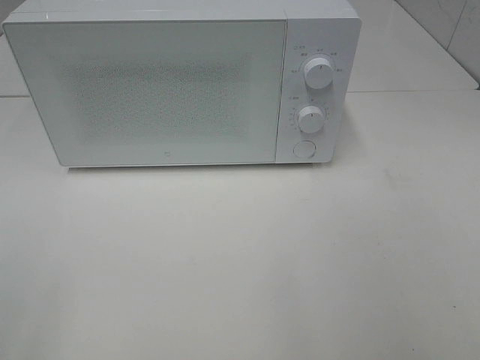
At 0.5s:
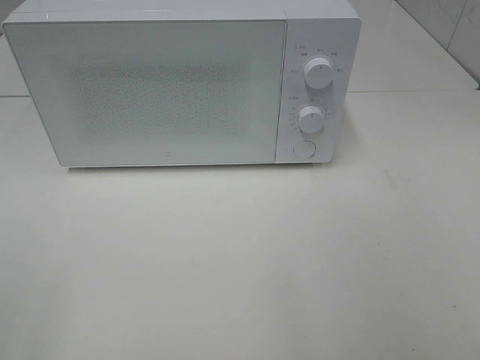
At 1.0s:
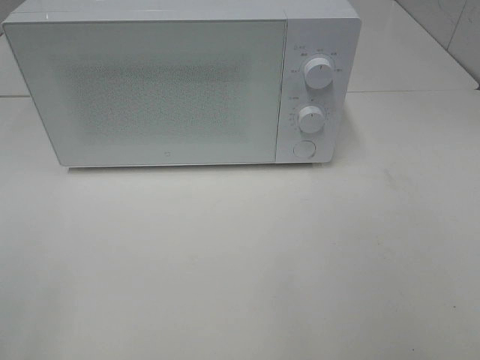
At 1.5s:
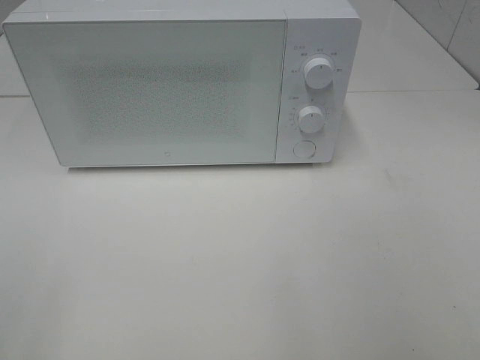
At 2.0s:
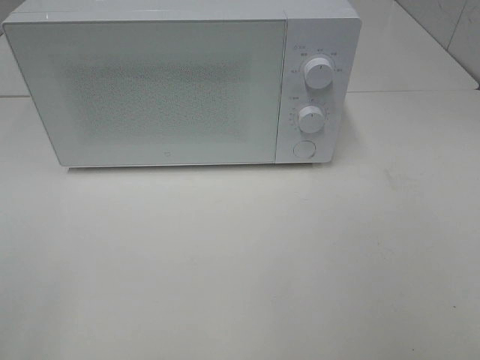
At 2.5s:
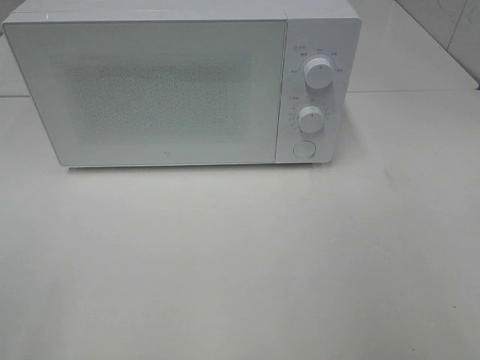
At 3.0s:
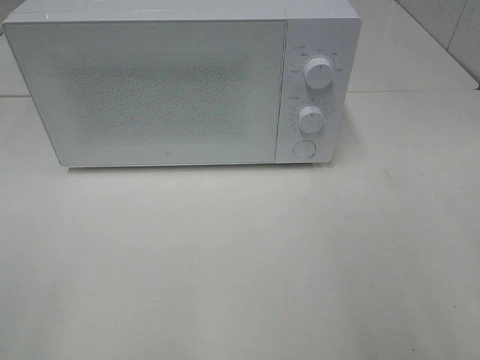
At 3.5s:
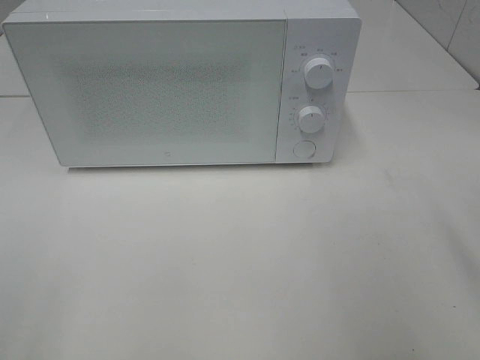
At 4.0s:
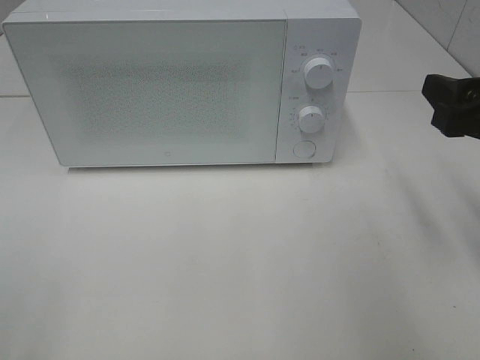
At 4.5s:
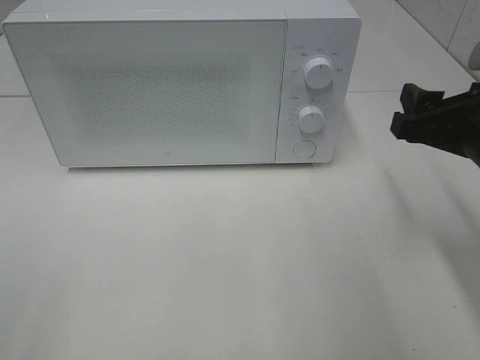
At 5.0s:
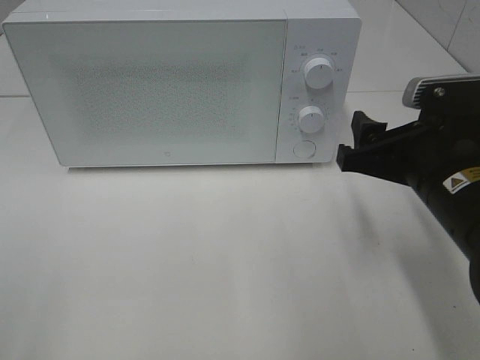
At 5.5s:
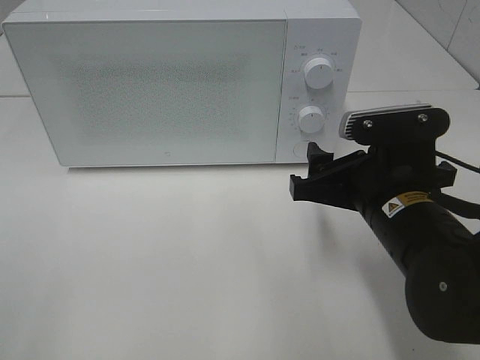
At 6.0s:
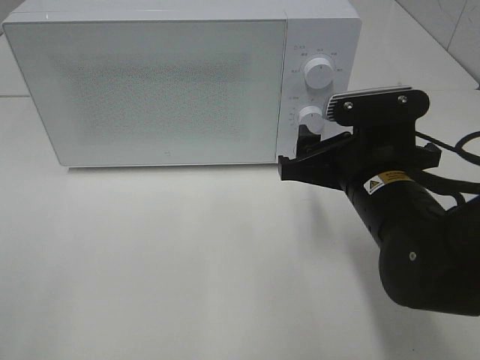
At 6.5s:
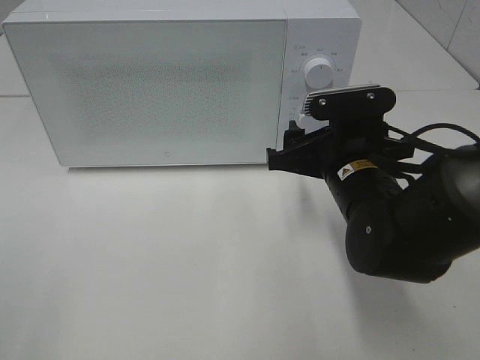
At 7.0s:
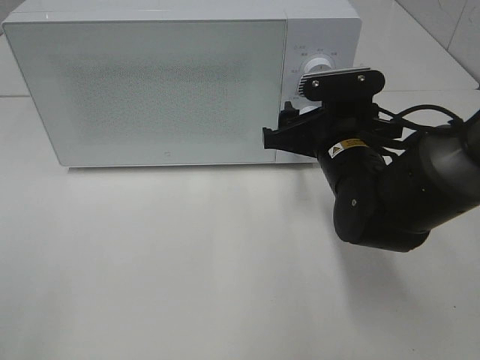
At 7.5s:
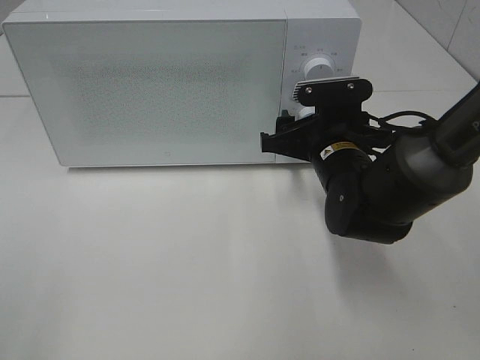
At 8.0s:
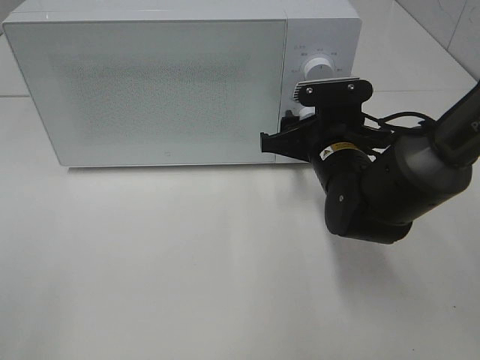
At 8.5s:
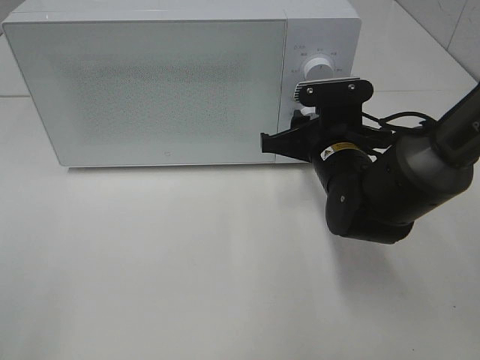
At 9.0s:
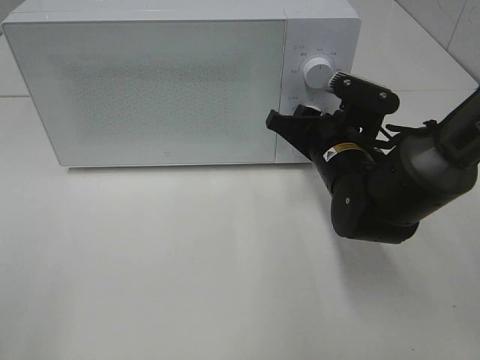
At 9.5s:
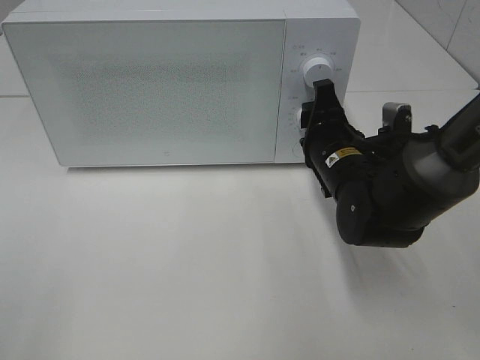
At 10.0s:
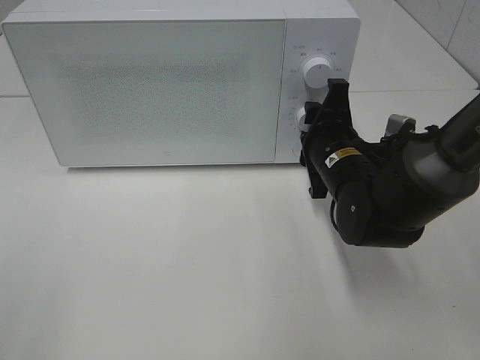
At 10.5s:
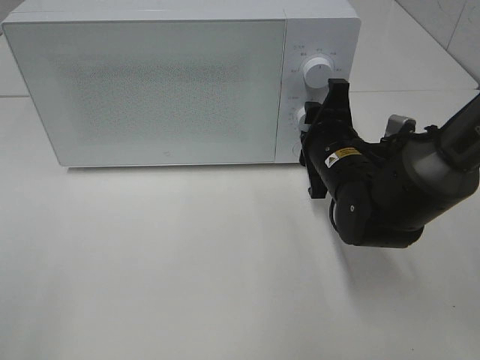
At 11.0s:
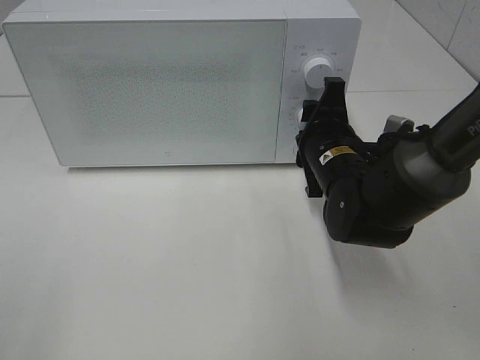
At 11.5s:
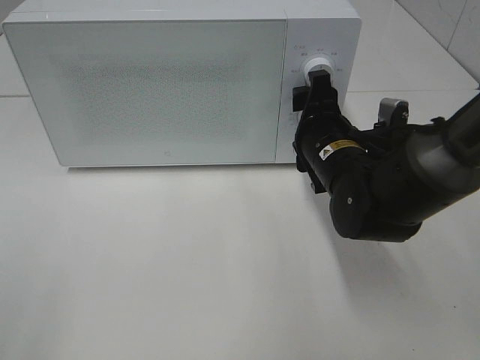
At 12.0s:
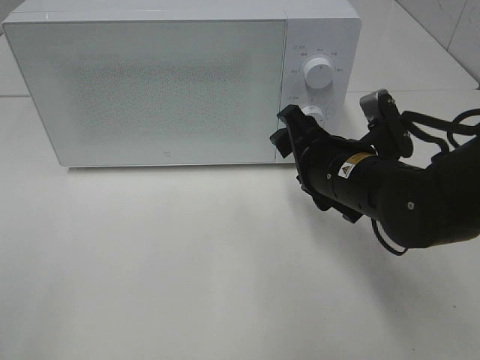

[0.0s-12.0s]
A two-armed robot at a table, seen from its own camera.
Task of the whole recording: Heat the burger.
Step, 0.0s to 11.0s: Right hand: twist timer button.
0.0s to 2.0s: Both grippers stay about where they are.
2.0s to 4.0s: The right gripper shifts roughly 20 cm forward.
4.0s to 6.0s: The right gripper travels to the left and downward by roughly 15 cm.
6.0s to 8.0s: The right gripper travels forward by about 10 cm.
10.0s to 12.0s: The right gripper changes place by about 5 cm.

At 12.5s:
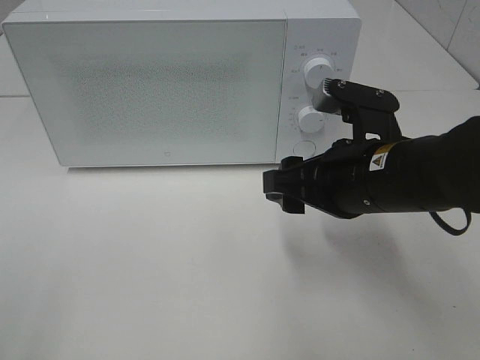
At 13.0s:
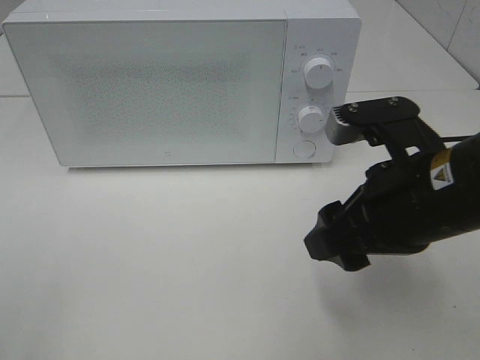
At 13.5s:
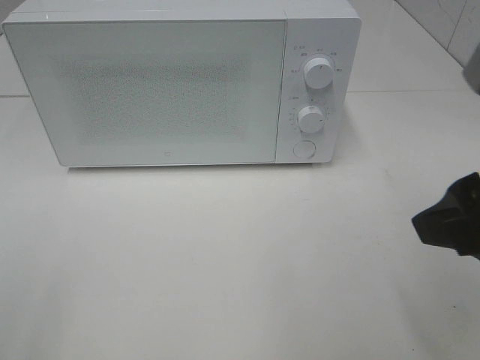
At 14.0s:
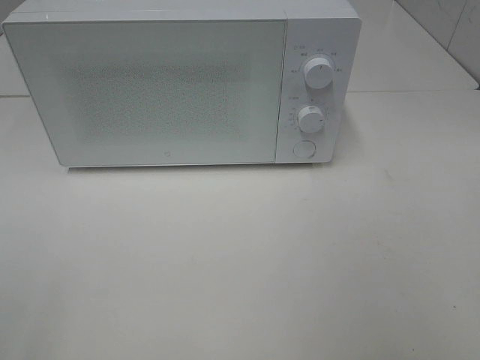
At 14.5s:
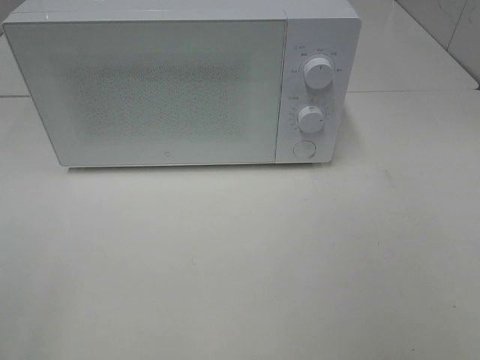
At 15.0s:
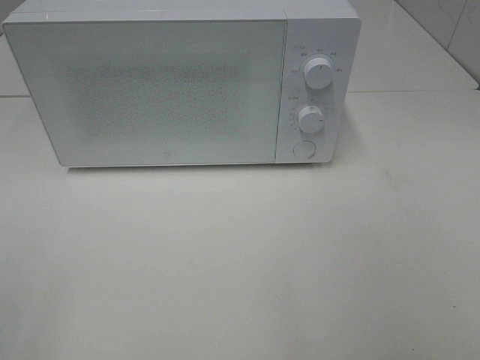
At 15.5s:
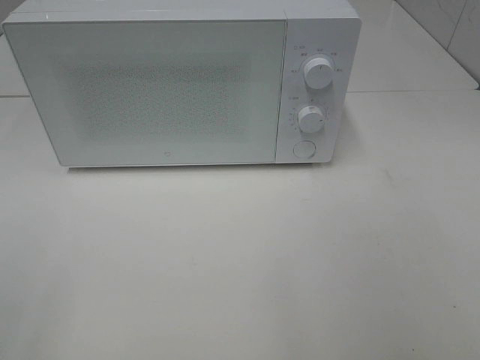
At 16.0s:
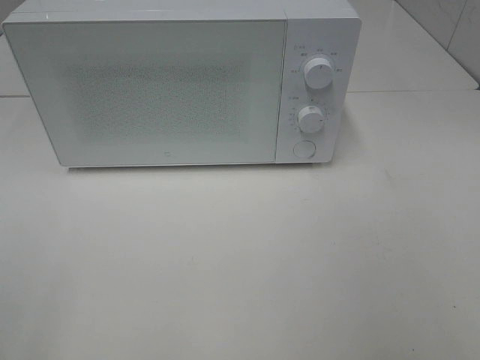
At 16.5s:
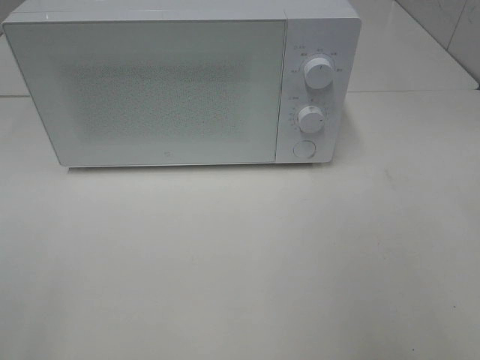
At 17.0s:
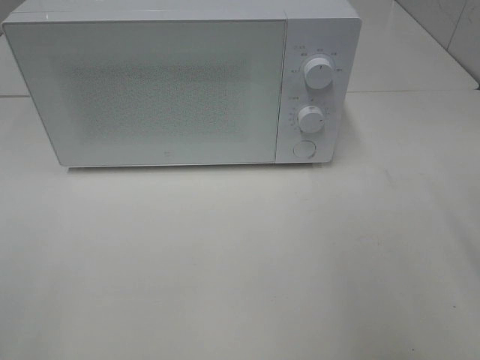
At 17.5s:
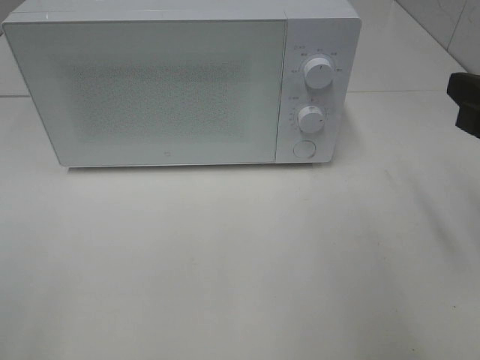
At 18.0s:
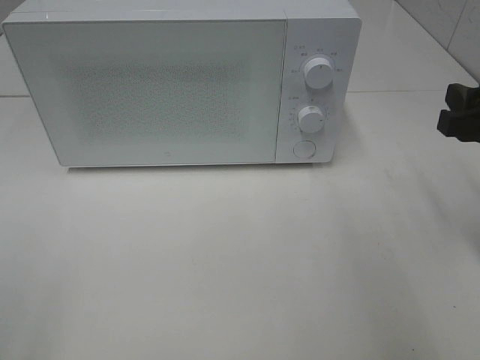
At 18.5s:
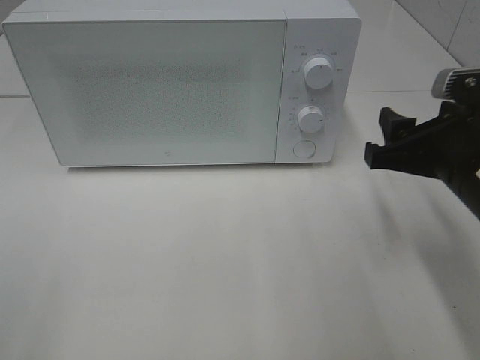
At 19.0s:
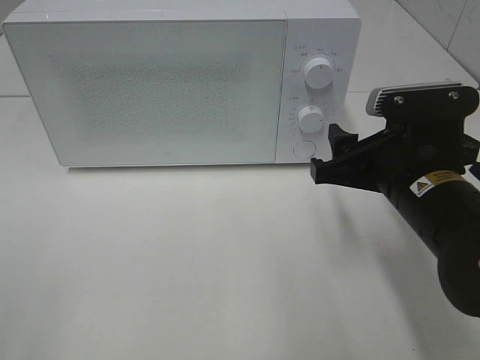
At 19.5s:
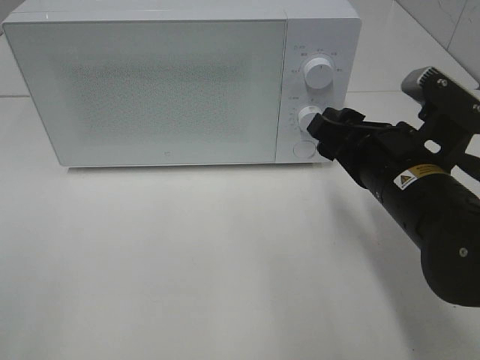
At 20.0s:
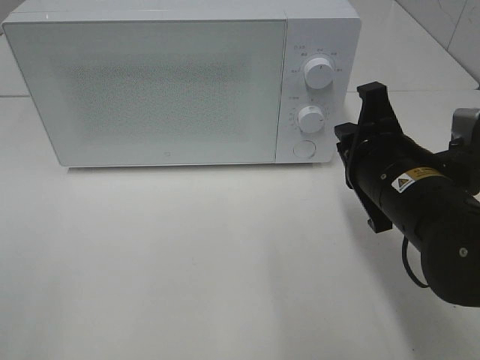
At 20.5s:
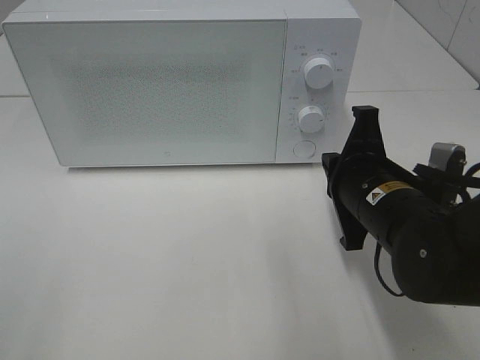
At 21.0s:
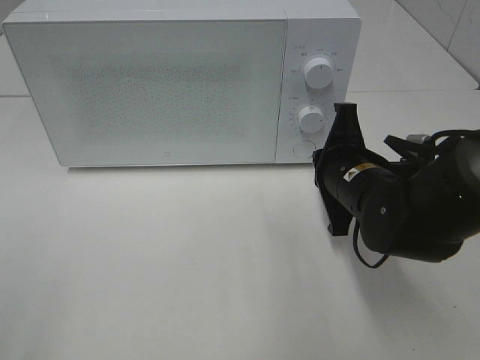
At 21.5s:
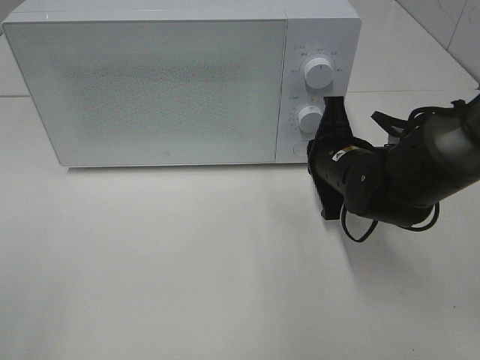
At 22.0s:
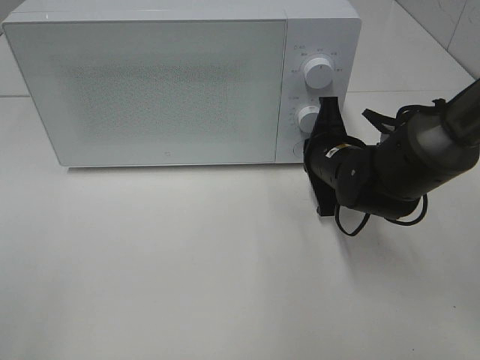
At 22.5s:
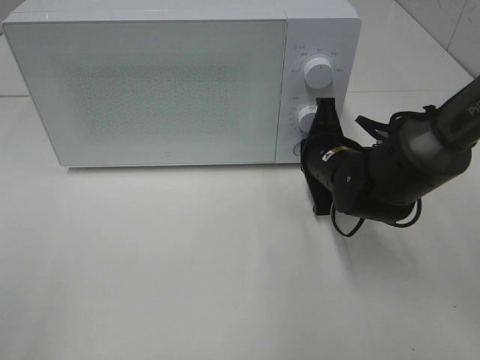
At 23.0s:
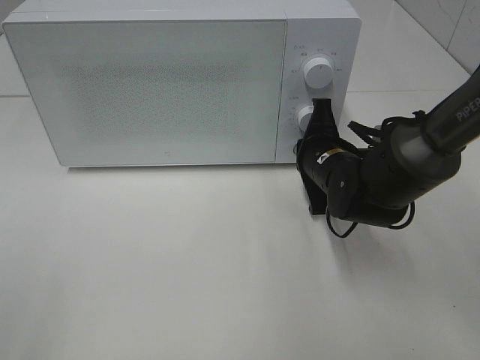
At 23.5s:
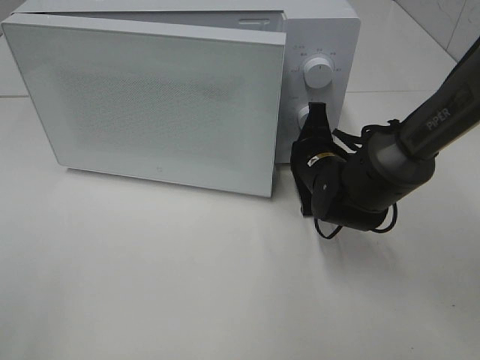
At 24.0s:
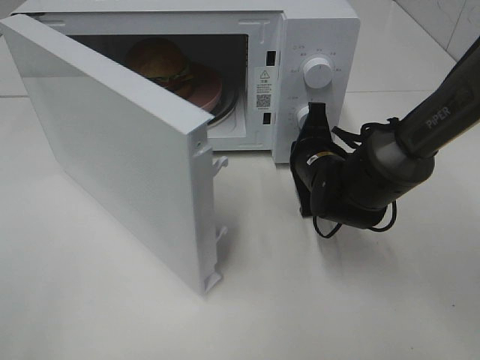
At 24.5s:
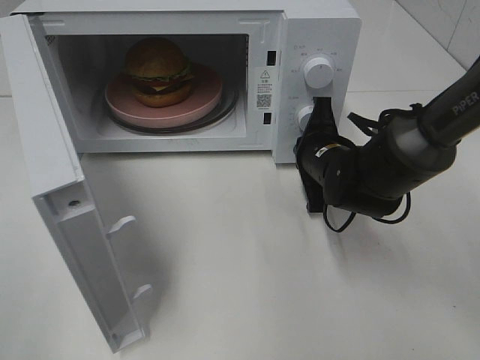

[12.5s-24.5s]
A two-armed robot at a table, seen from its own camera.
Task of the whole recording: Heat the burger.
12.5s to 14.5s: The right gripper travels backward, to the right and upward by about 30 cm.
16.5s to 18.5s: The right gripper moves downward, forward and to the left, some 20 cm.
18.5s to 20.5s: The right gripper moves to the left, some 5 cm, and closes.
20.5s to 22.5s: The right gripper moves forward, about 10 cm.

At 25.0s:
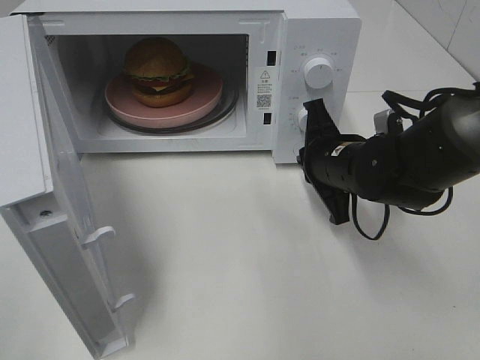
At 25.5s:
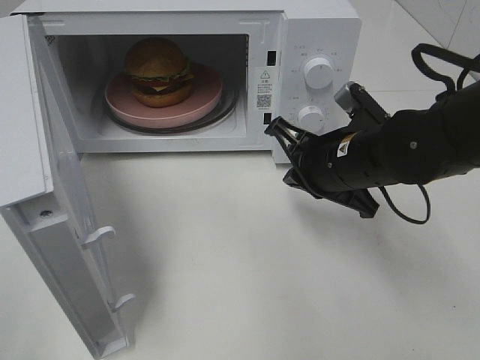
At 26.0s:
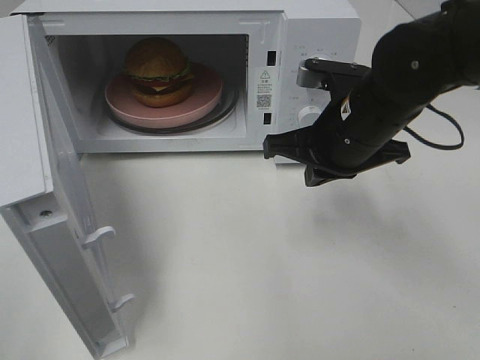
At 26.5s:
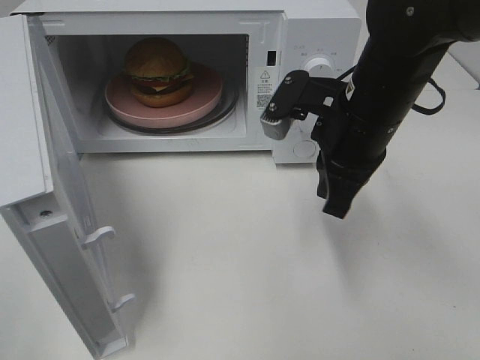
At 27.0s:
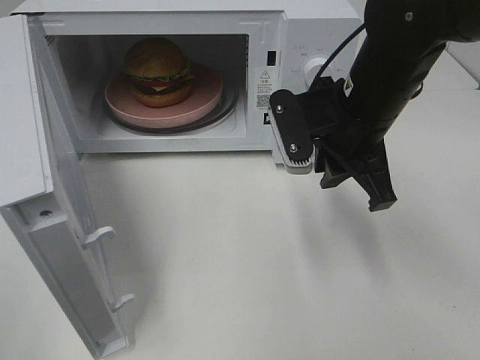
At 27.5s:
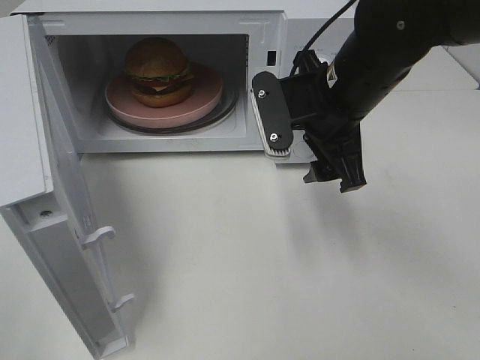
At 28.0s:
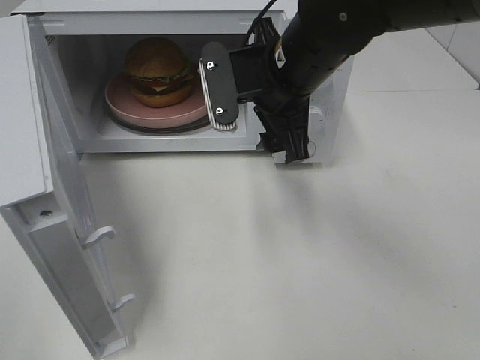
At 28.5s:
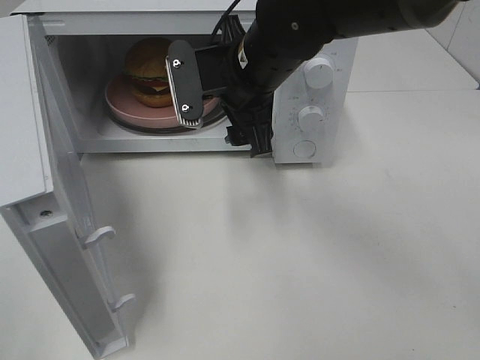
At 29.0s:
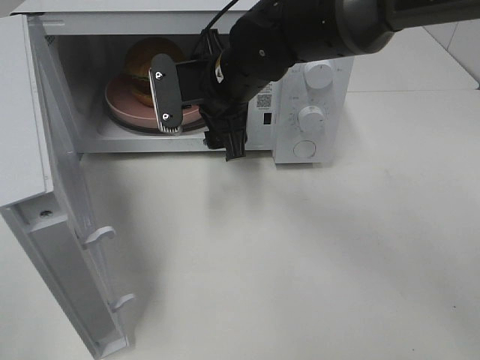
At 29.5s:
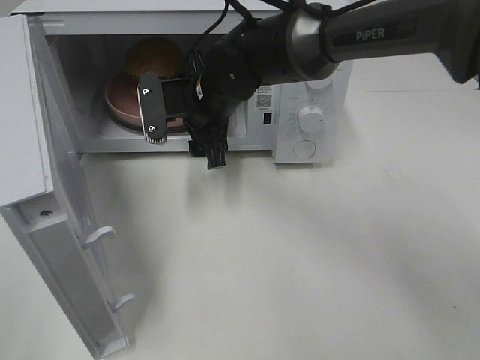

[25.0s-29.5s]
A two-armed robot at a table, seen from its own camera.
Task of the whole recording: Heat the burger.
25.0s to 27.0s: The right gripper heads upward, covering some 10 cm.
27.0s to 29.5s: The right gripper goes some 15 cm to the left and forward, and opens.
